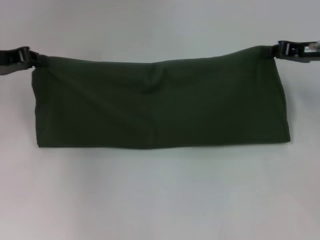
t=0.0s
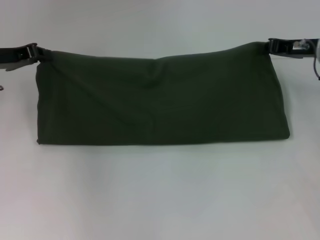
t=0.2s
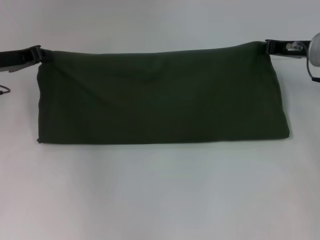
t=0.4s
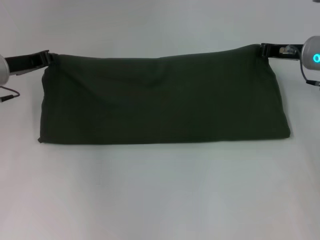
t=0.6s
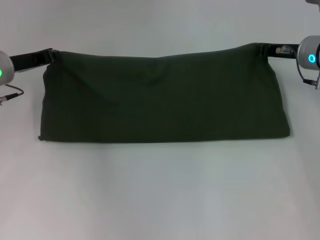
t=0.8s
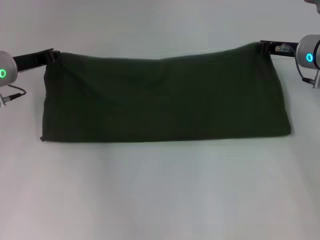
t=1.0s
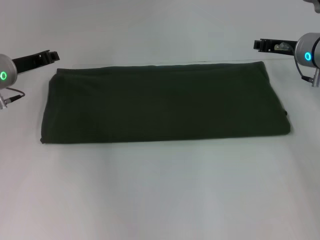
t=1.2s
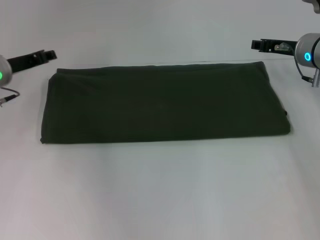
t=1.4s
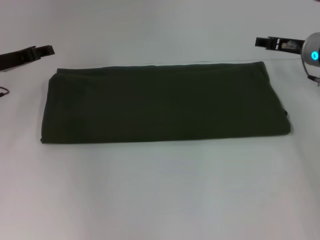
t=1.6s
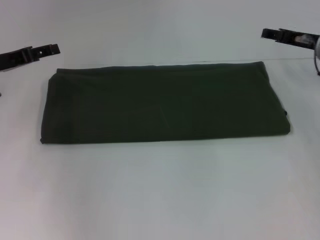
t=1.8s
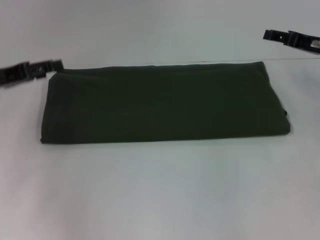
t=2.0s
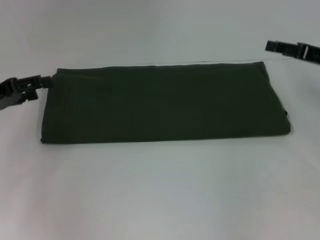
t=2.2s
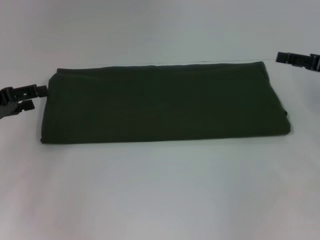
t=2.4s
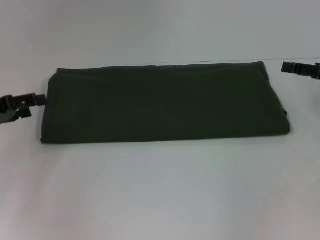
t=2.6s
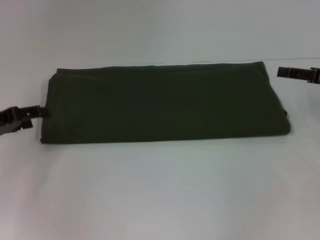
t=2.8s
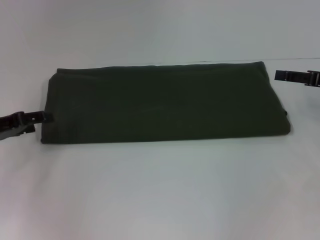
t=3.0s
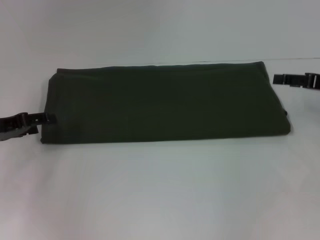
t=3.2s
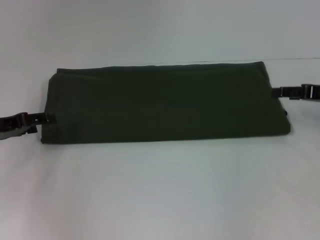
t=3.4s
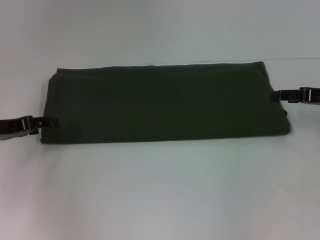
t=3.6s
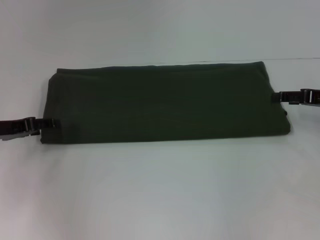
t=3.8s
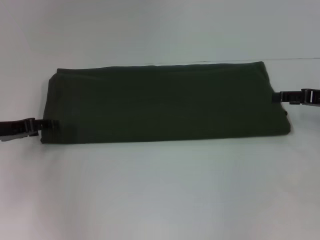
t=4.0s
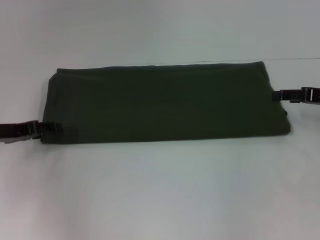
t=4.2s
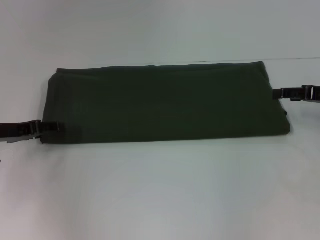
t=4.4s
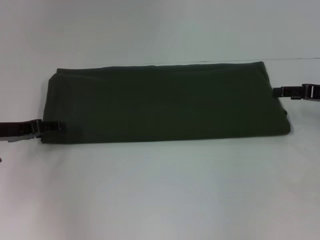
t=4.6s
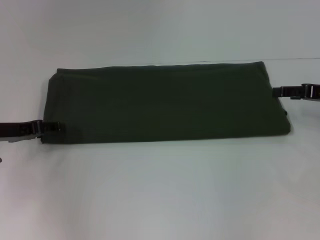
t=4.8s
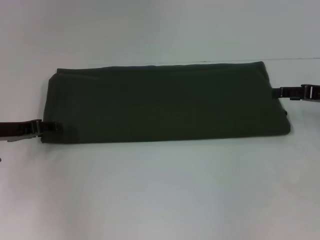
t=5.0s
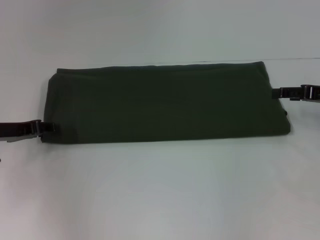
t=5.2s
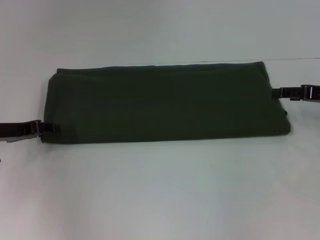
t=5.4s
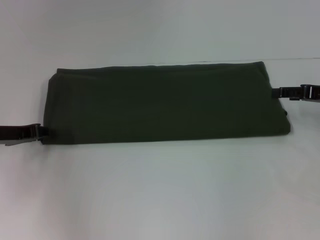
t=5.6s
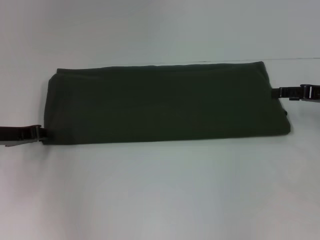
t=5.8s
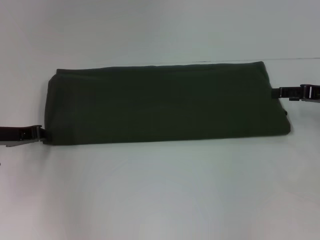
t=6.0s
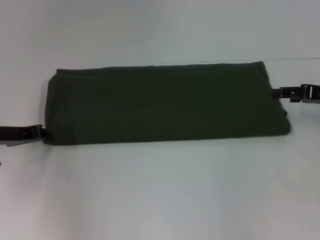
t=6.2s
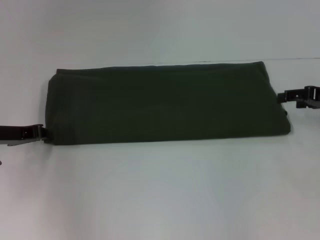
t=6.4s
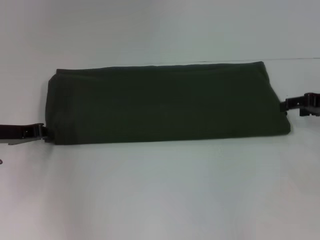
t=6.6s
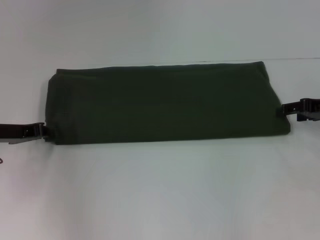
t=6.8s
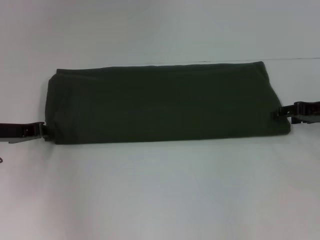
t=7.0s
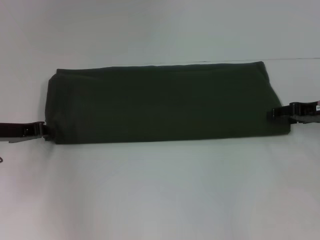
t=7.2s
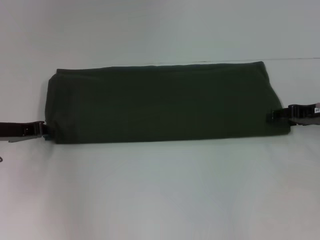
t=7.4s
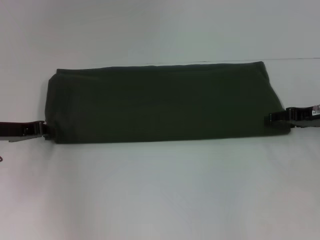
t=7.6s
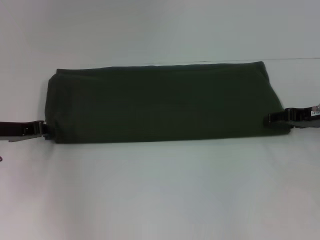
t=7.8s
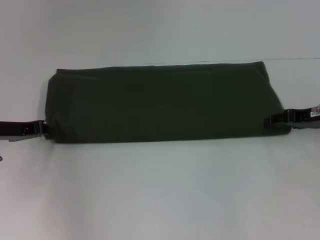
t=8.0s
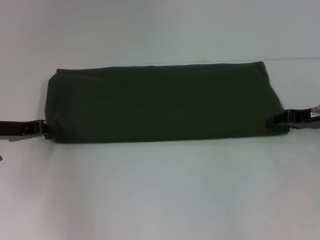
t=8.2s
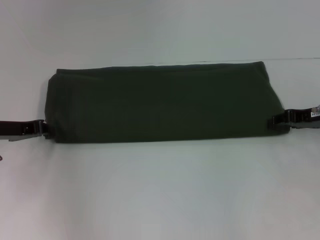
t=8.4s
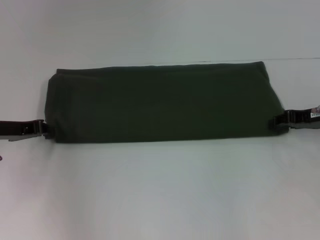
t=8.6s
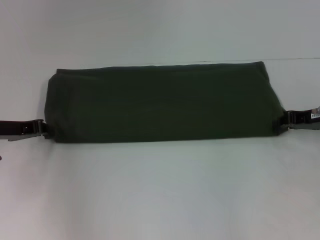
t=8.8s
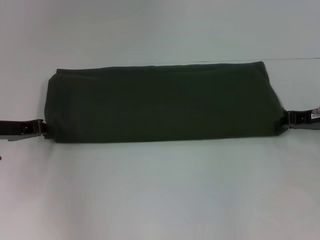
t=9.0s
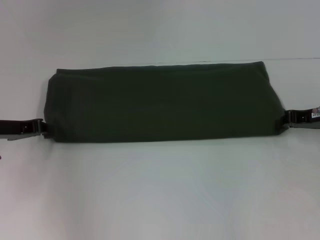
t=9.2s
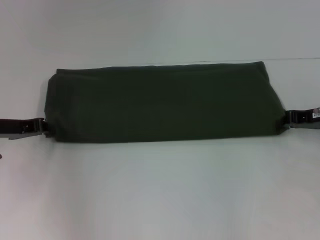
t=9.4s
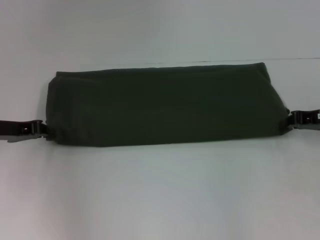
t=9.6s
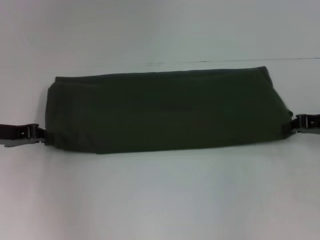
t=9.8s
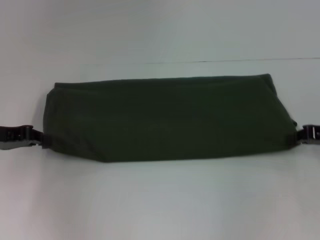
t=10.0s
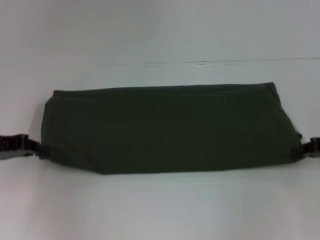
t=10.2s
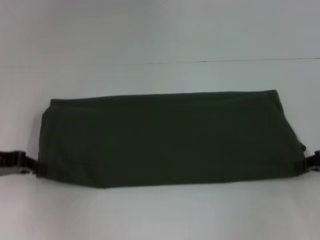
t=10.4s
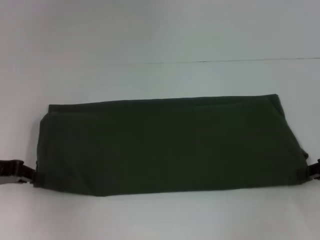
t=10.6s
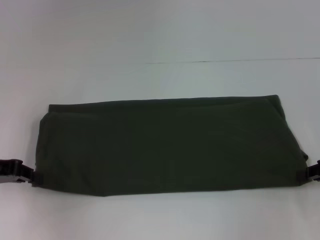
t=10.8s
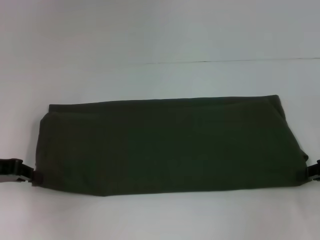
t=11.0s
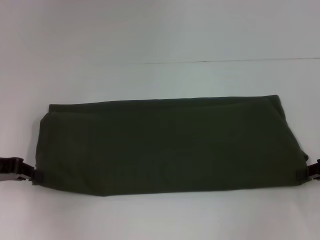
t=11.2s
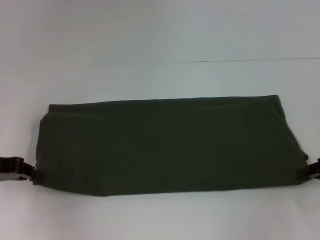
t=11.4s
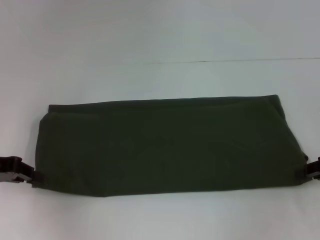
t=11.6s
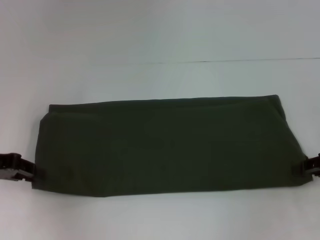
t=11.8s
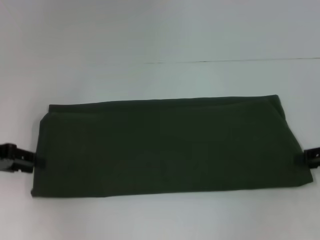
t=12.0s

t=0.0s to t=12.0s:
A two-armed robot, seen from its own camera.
Step, t=0.0s to t=1.6s: Fold the clothes with your left hand.
Step, t=0.0s to t=1.6s: Fold the clothes with your right hand.
Step, t=1.8s to t=11.0s: Pull the clothes with your left hand.
Step, t=1.8s to t=11.0s: Pull the clothes with your right hand.
t=0.0s to t=1.6s: The left gripper opens up. Meanwhile the right gripper shifts by about 5 cm, and opens.
t=1.6s to t=3.0s: The right gripper shifts about 10 cm backward and to the right, while the left gripper is displaced backward by about 10 cm, and opens up.
t=3.0s to t=4.4s: The grippers move only a little.
t=4.4s to t=6.0s: The left gripper closes its fingers.
t=6.0s to t=7.6s: The grippers stay close to where they were, moving slightly.
t=9.0s to t=10.4s: The right gripper travels backward by some 10 cm. The left gripper moves roughly 5 cm.
t=10.4s to t=12.0s: There are only small adjustments of the grippers.

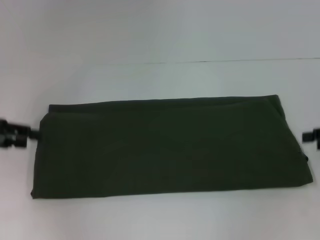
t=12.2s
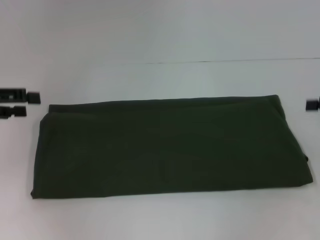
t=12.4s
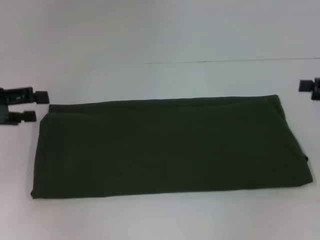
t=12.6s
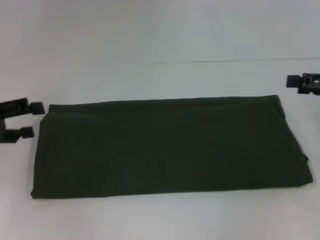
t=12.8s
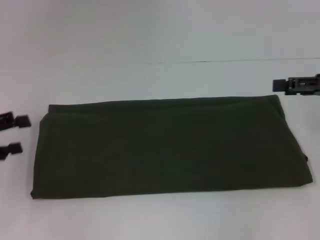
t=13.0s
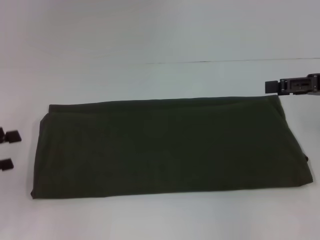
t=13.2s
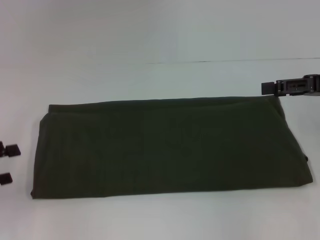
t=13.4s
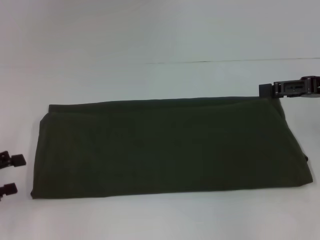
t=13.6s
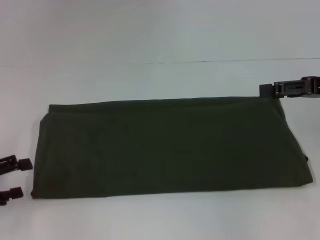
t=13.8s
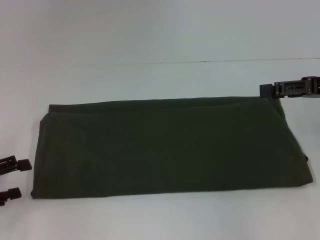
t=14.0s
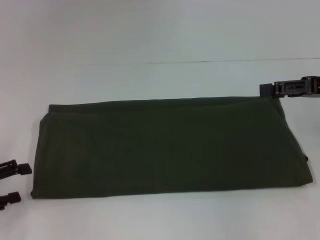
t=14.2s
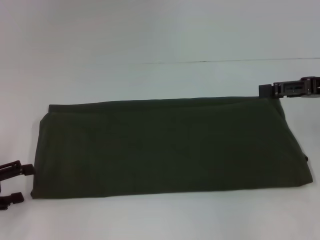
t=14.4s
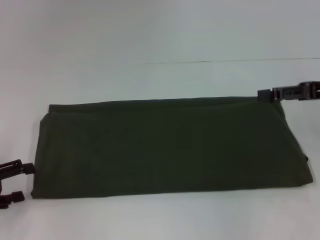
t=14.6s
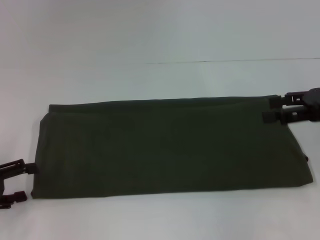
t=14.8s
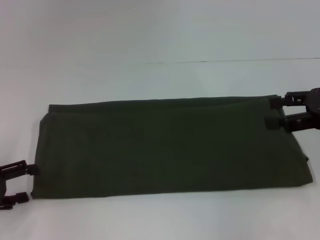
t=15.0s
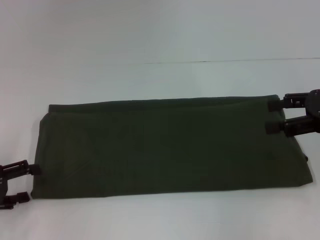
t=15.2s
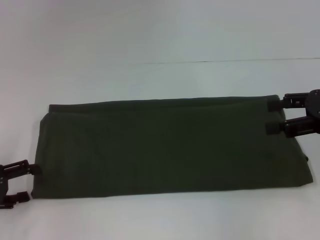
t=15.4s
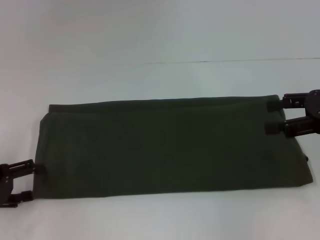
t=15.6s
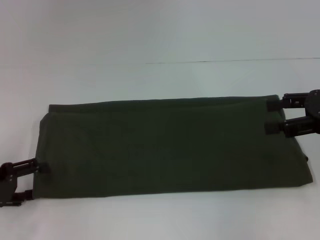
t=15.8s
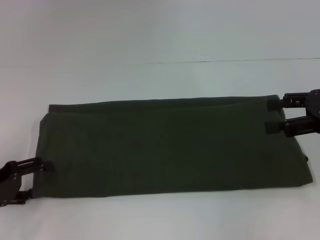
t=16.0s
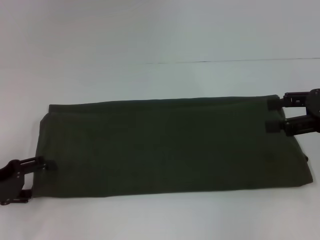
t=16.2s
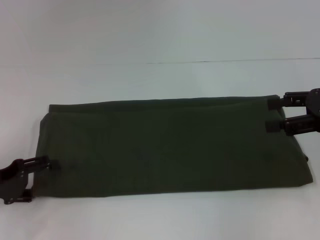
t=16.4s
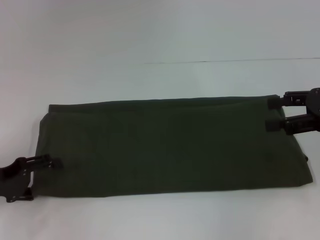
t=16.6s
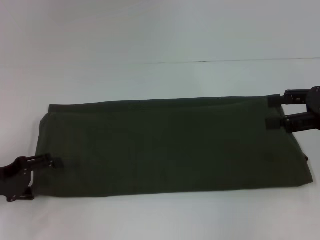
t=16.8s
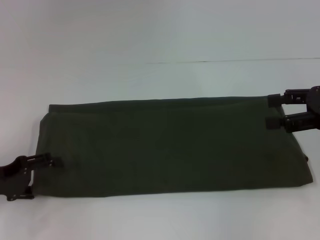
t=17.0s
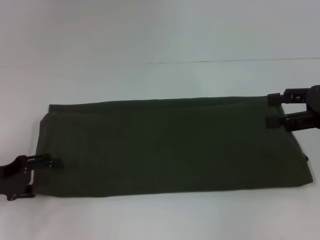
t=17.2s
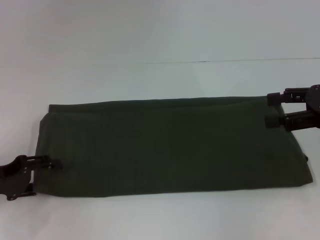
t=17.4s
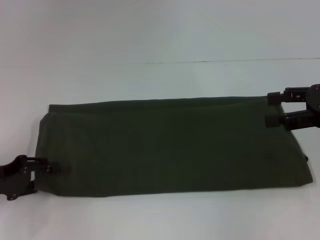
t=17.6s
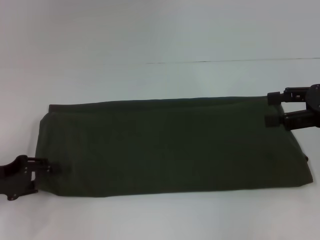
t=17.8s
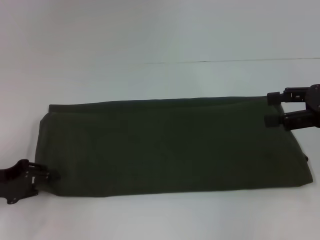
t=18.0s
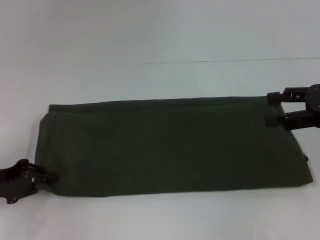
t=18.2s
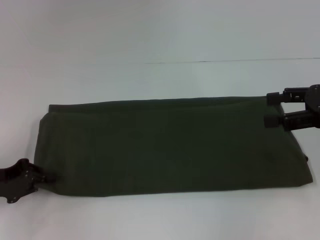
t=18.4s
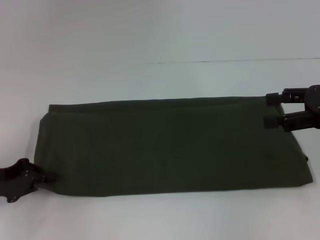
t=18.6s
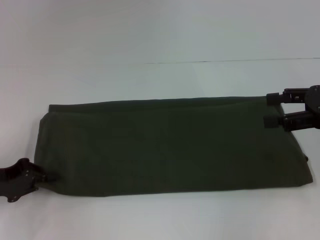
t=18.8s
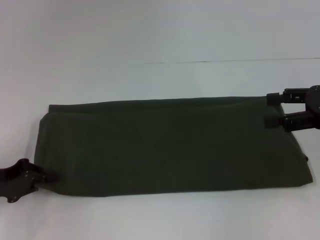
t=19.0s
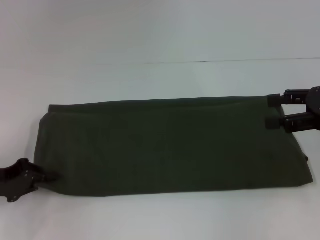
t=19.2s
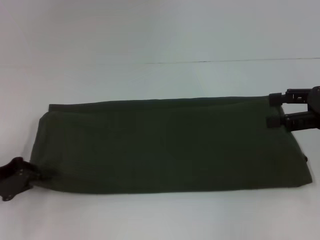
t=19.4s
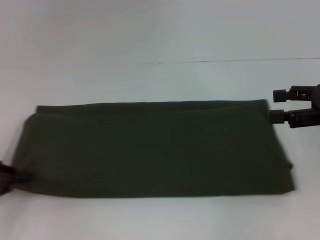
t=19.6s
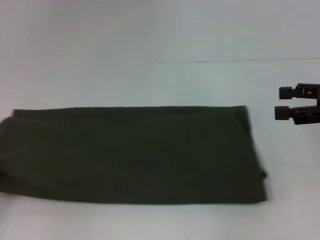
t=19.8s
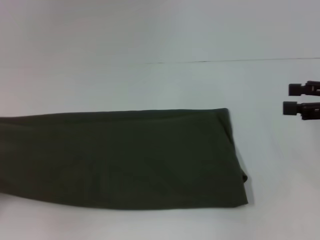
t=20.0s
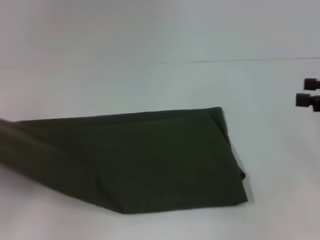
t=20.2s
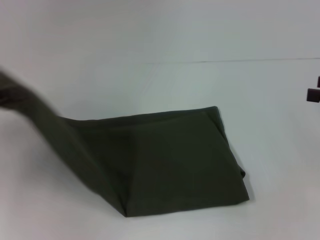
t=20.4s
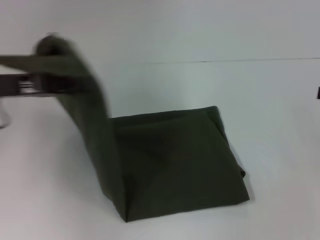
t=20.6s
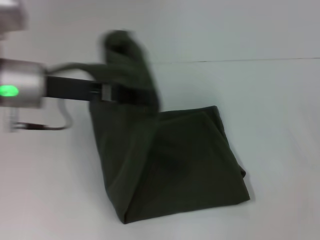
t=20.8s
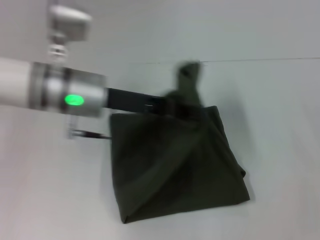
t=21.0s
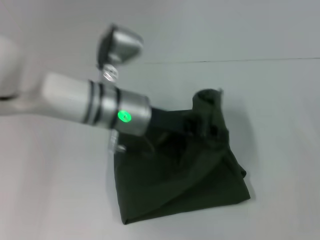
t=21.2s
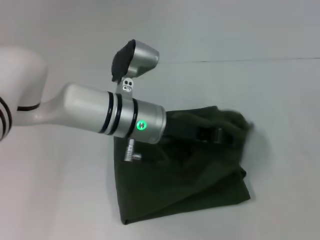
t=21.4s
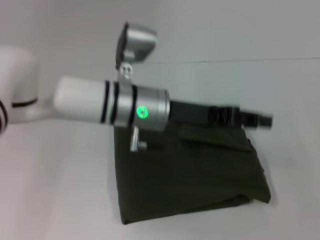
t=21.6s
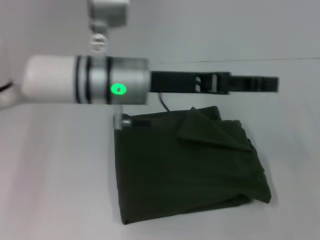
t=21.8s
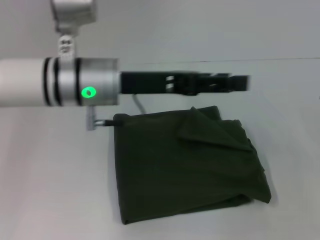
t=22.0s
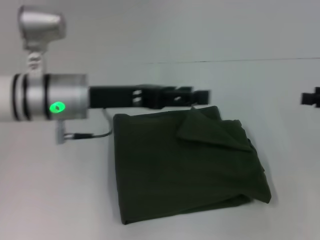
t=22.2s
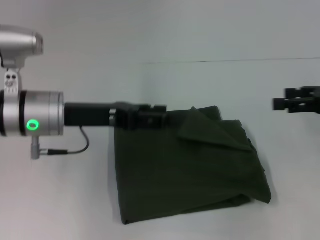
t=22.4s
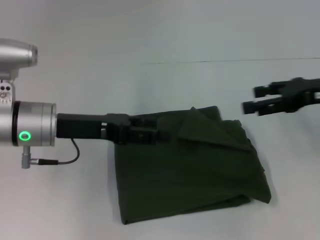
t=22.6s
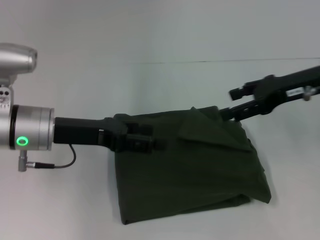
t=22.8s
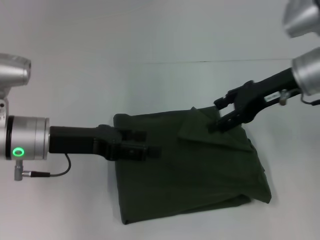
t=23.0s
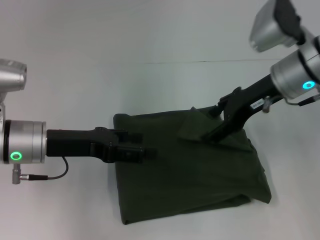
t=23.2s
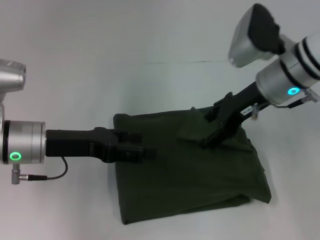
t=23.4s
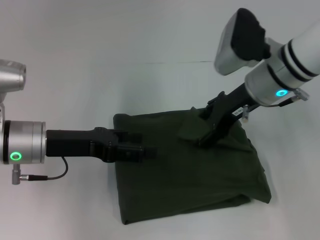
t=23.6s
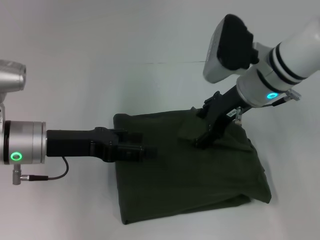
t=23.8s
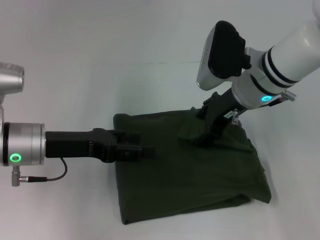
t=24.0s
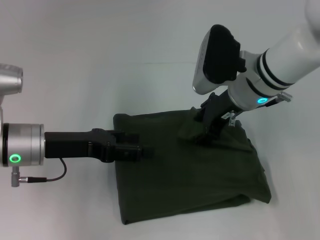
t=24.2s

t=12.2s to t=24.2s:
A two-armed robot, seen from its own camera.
Step, t=12.2s to t=22.2s: Fold the clothes with your left hand.
t=12.2s to t=13.8s: The right gripper heads to the left, covering approximately 5 cm, and opens up. Meanwhile the left gripper is displaced backward and downward by some 10 cm, and opens its fingers.
t=15.2s to t=16.6s: The grippers stay close to where they were, moving slightly.
t=16.6s to t=18.2s: The left gripper closes its fingers.
t=18.2s to t=19.8s: The left gripper heads to the left, covering approximately 5 cm, and closes.
t=19.8s to t=21.2s: The left gripper travels to the right by roughly 35 cm; the right gripper is displaced to the right by roughly 10 cm.
t=21.2s to t=22.6s: The left gripper travels to the left by approximately 10 cm, and opens. The right gripper goes roughly 15 cm to the left and forward.
t=22.6s to t=24.2s: The right gripper is displaced to the left by roughly 15 cm.
